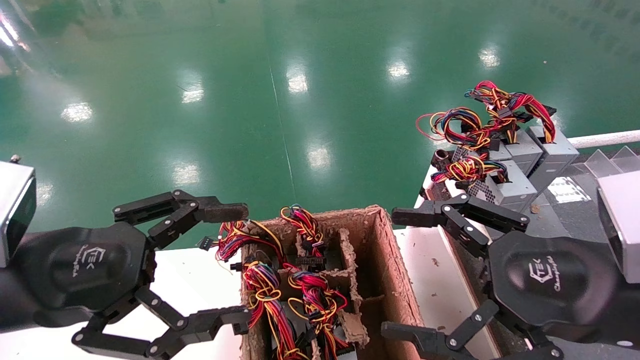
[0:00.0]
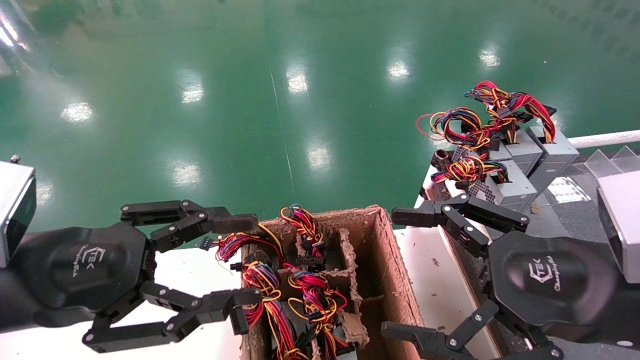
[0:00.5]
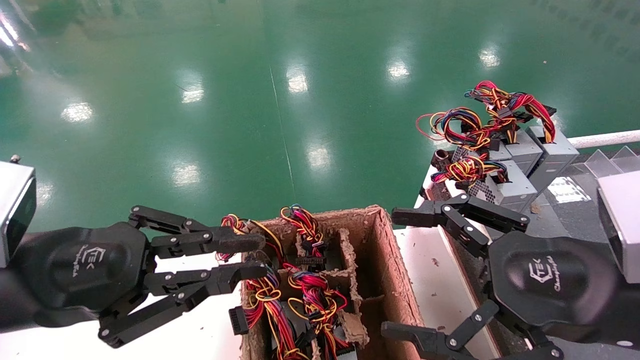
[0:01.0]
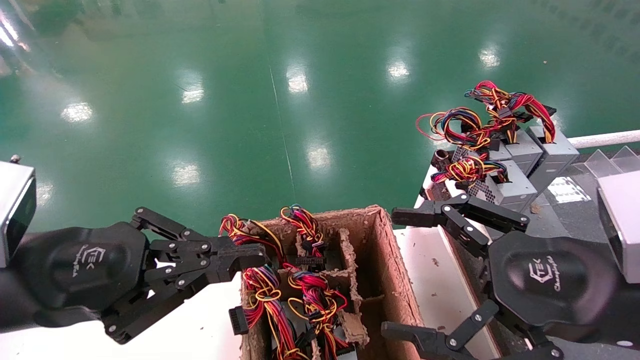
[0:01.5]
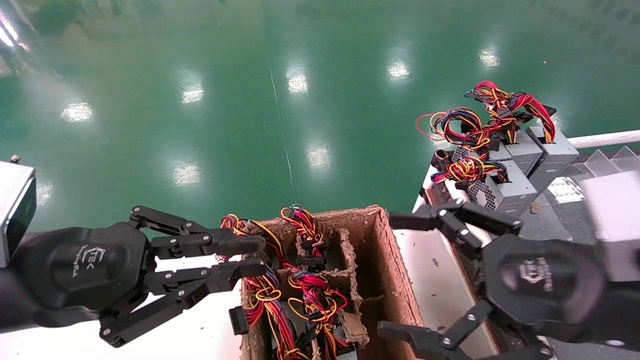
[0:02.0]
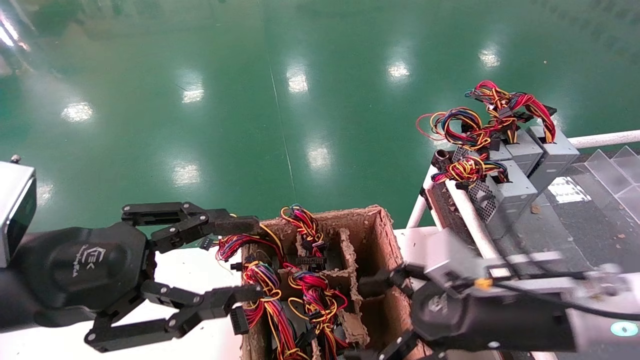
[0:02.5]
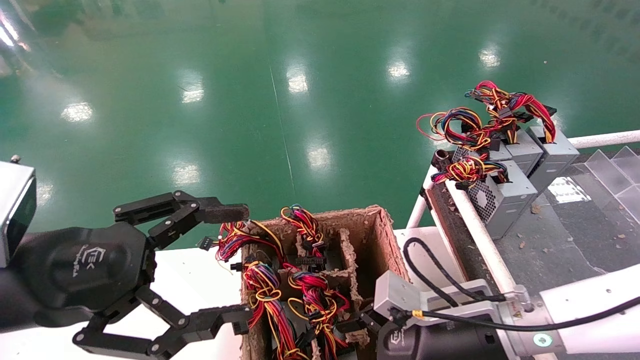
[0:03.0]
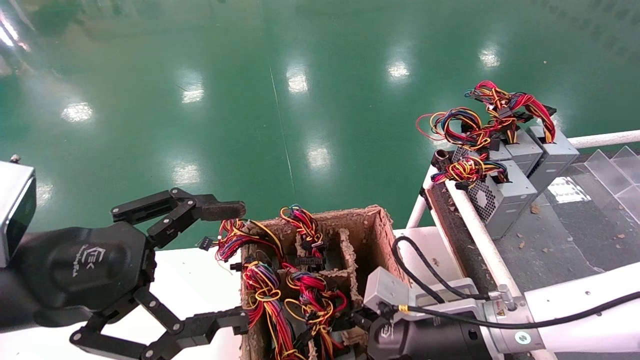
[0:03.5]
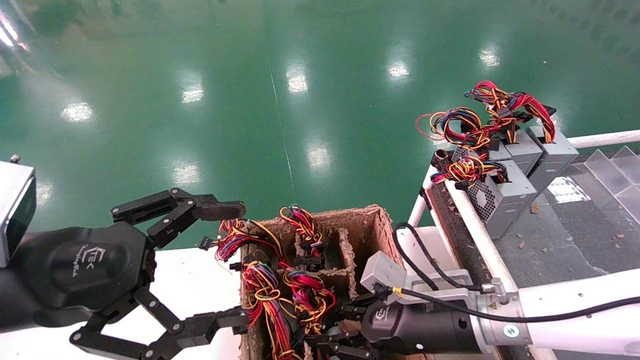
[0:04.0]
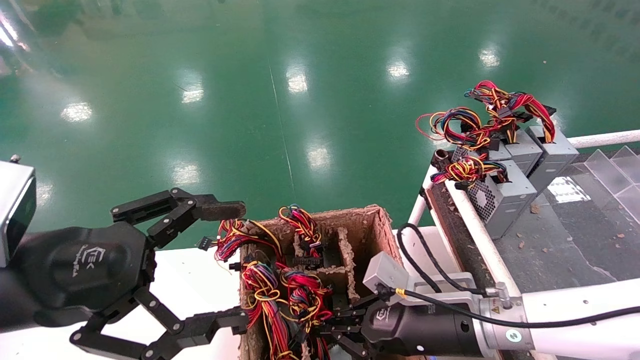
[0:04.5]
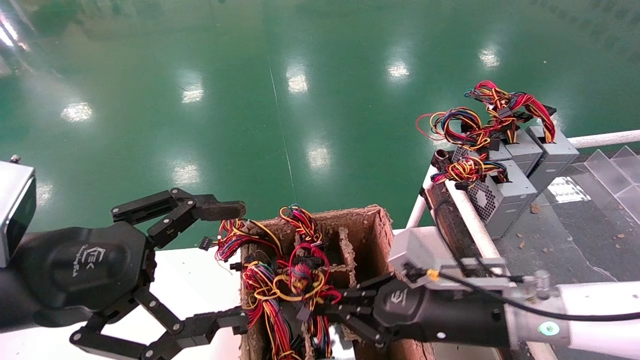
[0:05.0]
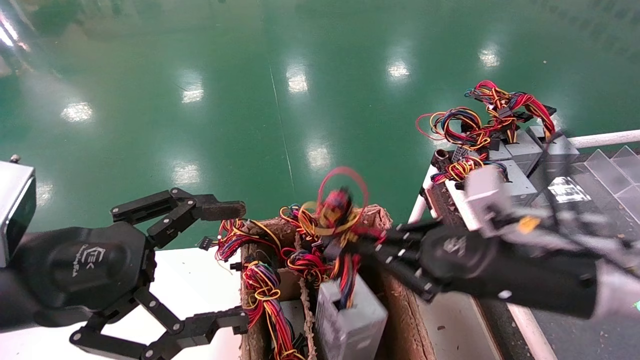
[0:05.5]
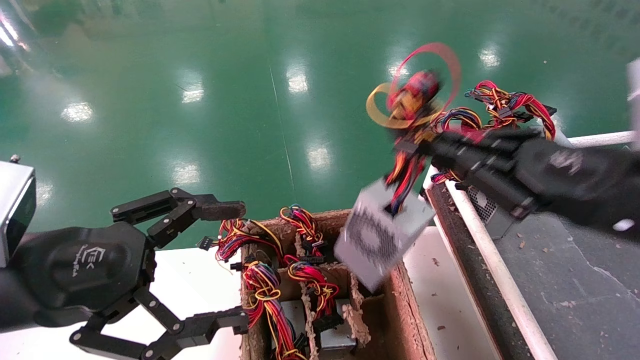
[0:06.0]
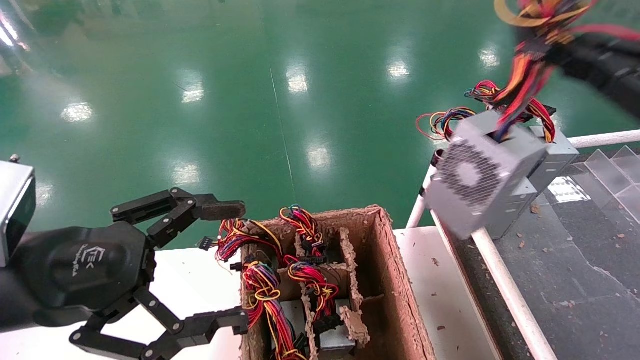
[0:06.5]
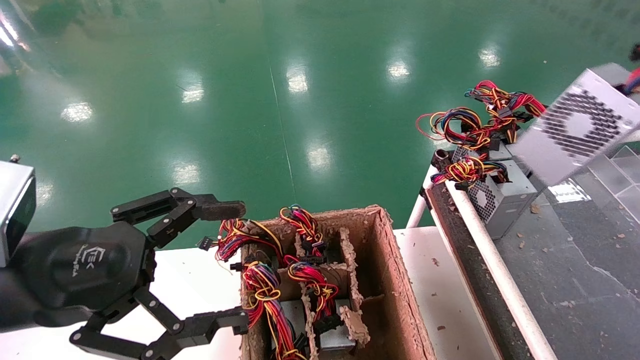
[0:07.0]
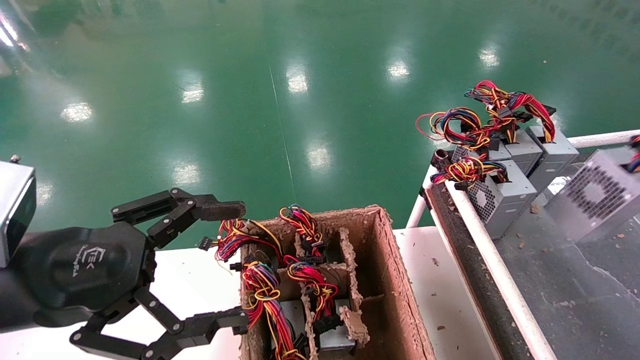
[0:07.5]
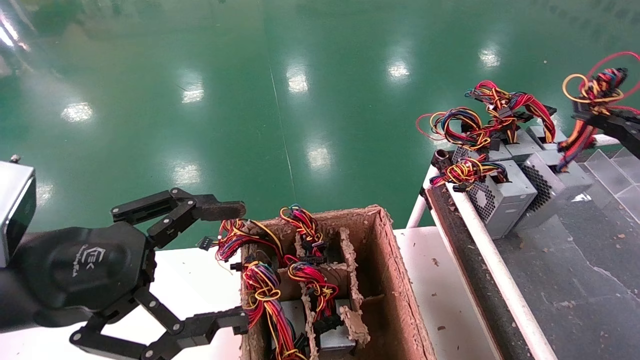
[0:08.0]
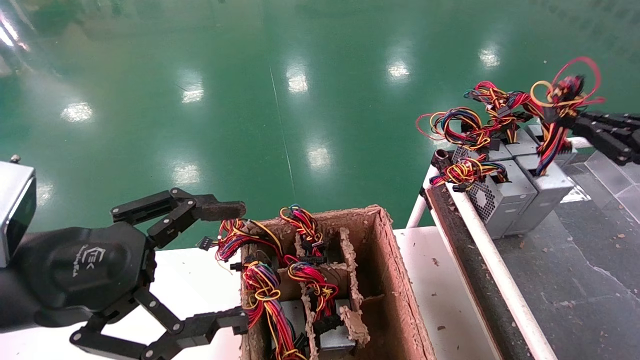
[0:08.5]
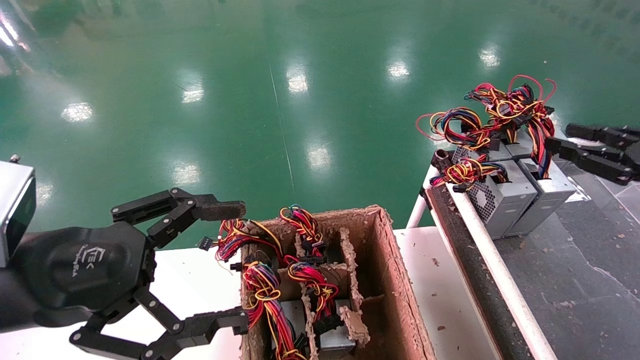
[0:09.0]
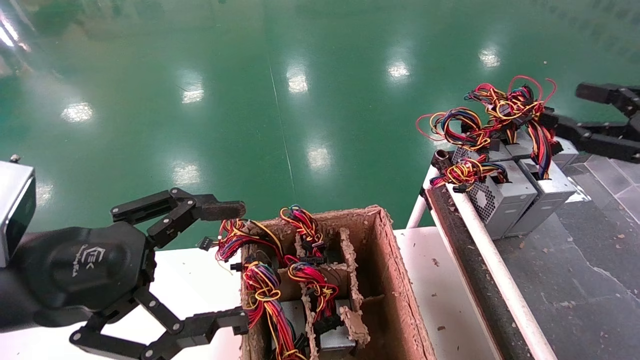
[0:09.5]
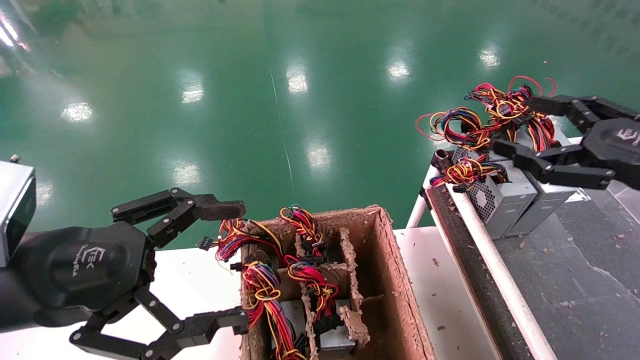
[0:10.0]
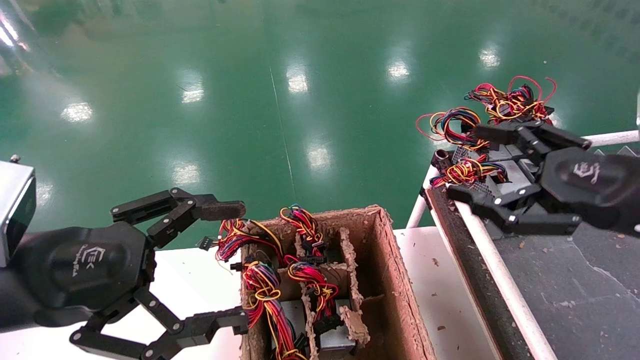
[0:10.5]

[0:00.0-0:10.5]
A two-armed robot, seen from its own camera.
Step, 0:02.5 to 0:04.5: Grab and lift the power supply from the large box.
Step, 0:05.0 to 0:09.0: Place the power supply on the operating table.
0:00.0 to 0:02.0: The left gripper closes its fingers.
0:02.0 to 0:04.0: The right gripper travels downward, forward and to the left by approximately 20 cm, and closes. Meanwhile the left gripper opens up.
0:04.0 to 0:06.5: The right gripper moves upward, to the right and backward, approximately 35 cm, and closes its fingers.
0:06.5 to 0:08.5: The right gripper moves forward, to the right and downward, about 15 cm.
0:08.5 to 0:10.5: The right gripper is displaced to the left and backward by roughly 15 cm, and opens.

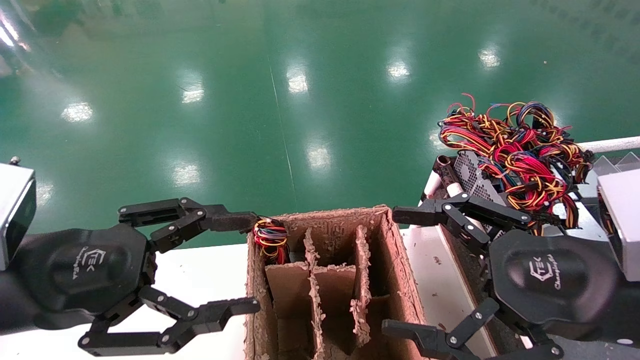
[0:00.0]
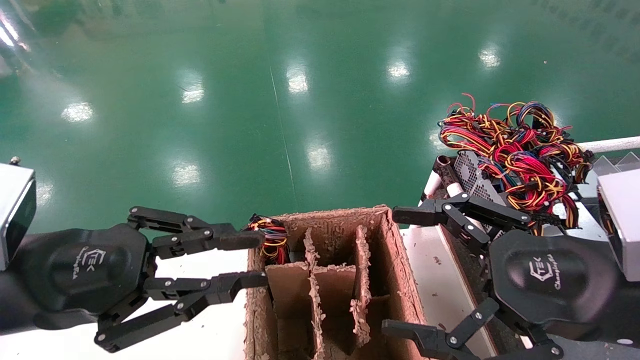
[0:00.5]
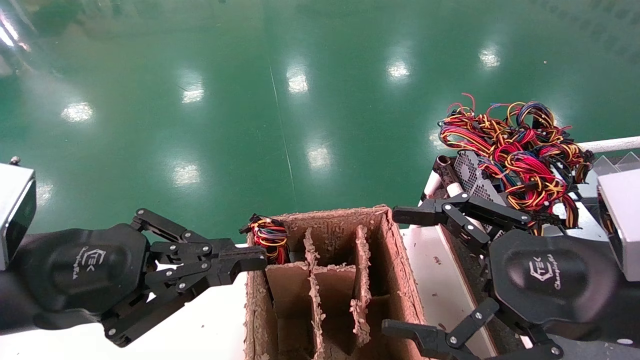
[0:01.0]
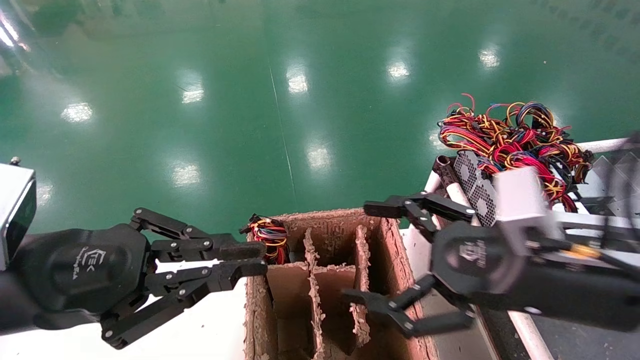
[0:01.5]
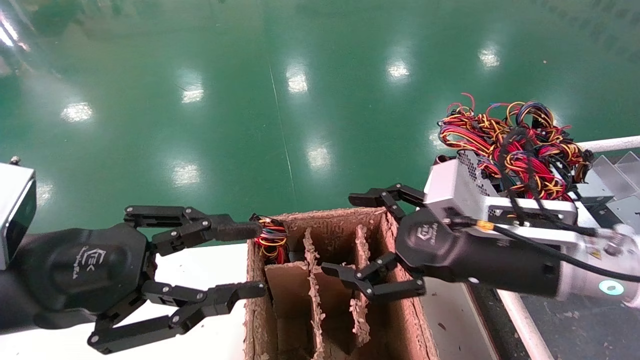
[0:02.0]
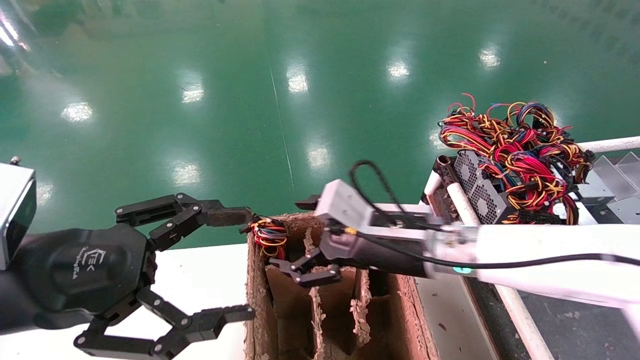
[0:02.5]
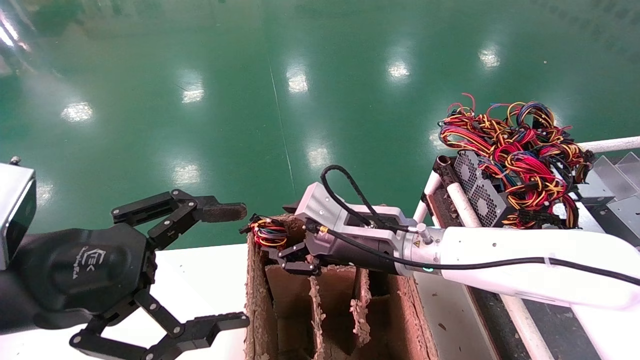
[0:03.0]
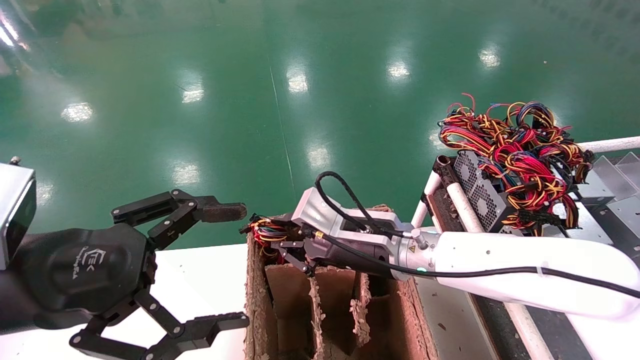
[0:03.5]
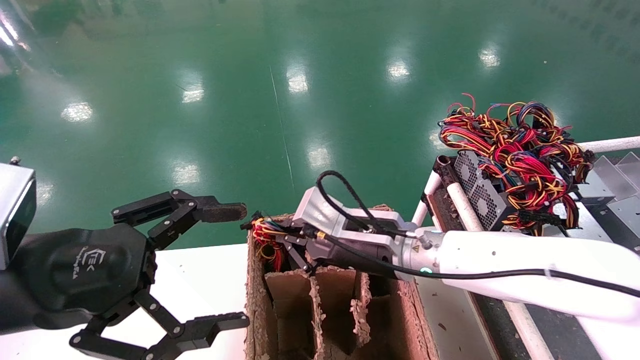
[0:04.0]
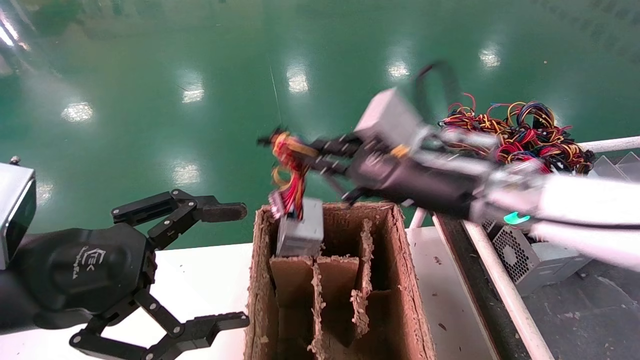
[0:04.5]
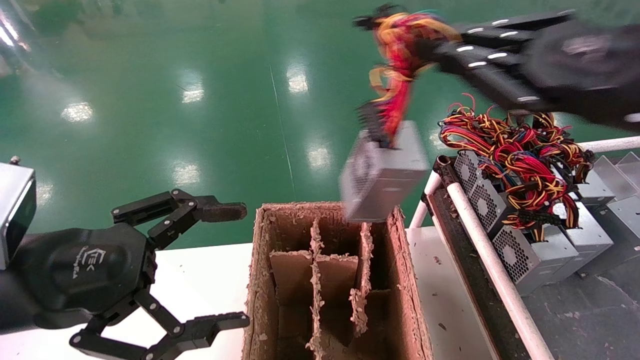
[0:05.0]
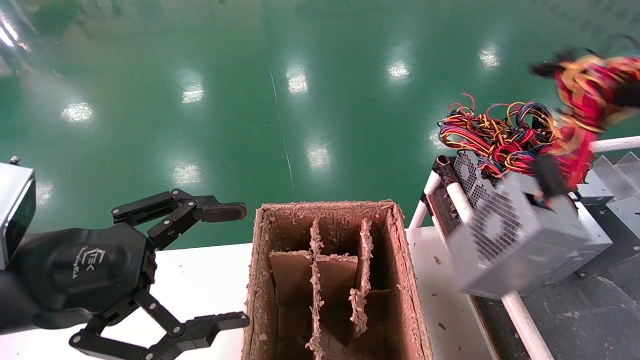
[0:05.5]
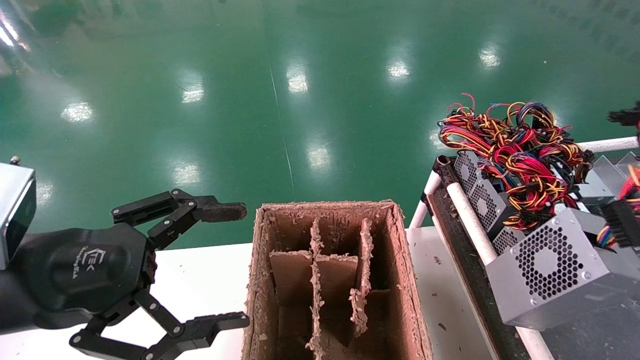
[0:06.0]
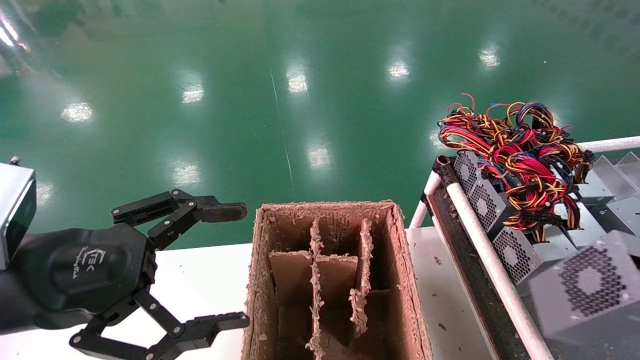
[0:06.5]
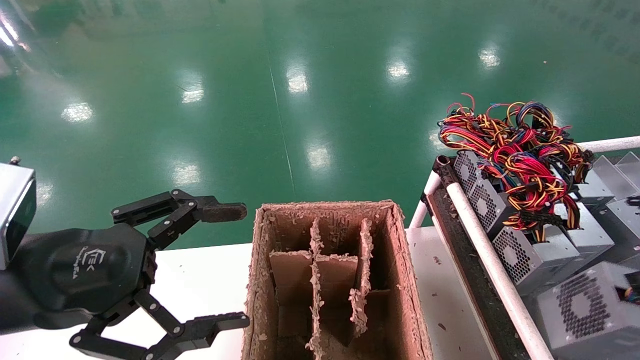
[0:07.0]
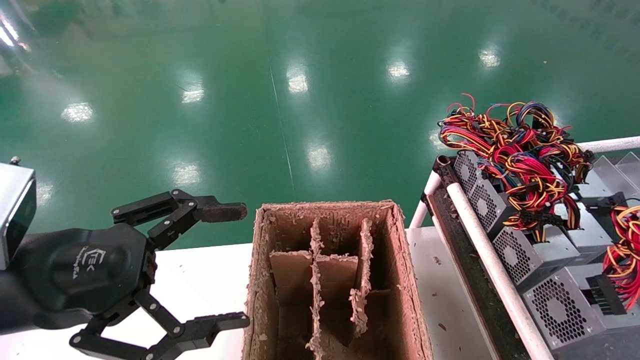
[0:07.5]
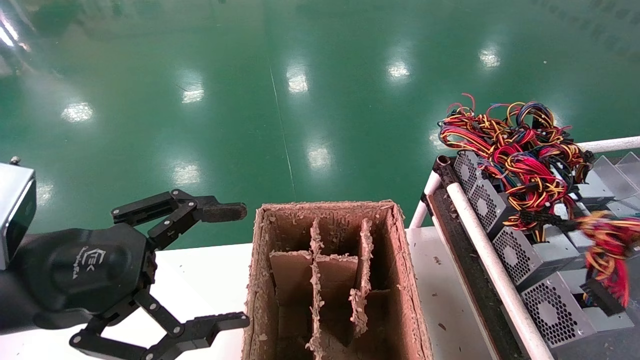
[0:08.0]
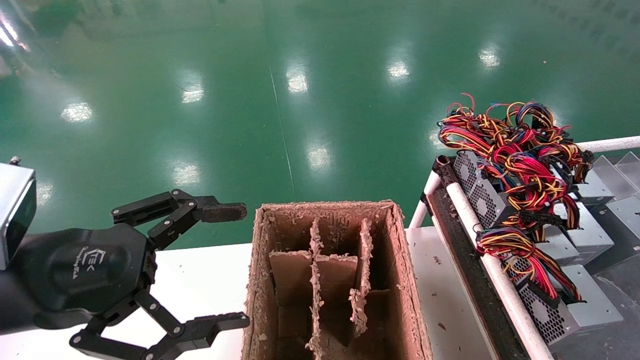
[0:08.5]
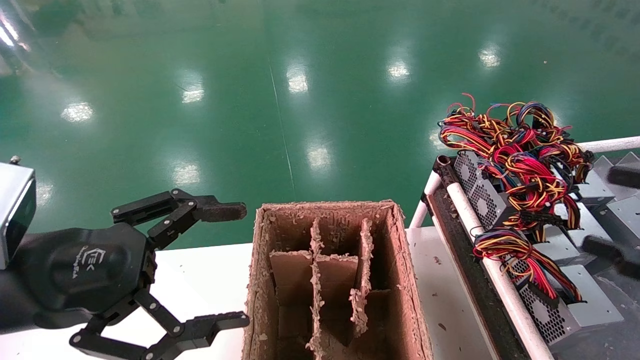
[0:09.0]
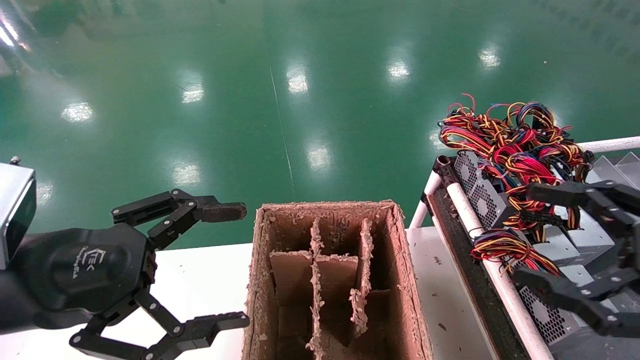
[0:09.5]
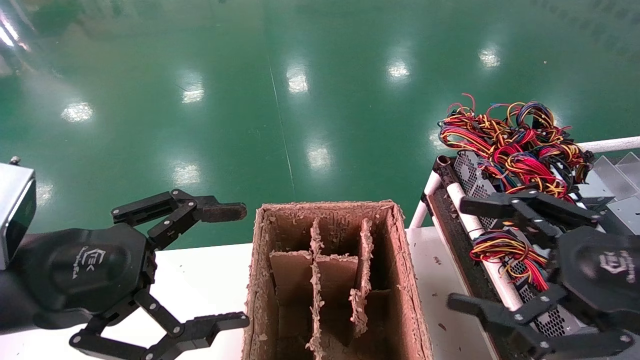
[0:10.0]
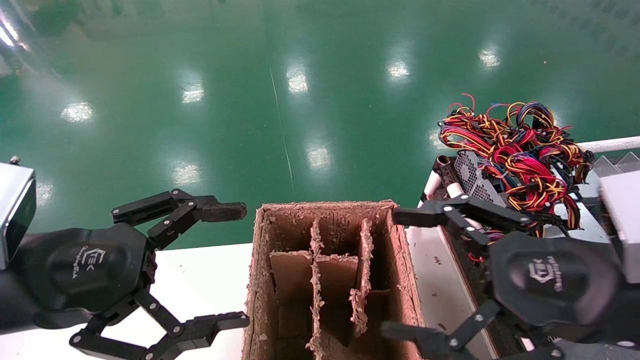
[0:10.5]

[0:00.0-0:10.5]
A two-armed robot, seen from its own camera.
Step, 0:01.5 to 0:03.5: Grab and lift the power supply from the large box.
Step, 0:04.0 to 0:08.0: Place the power supply on the operating table.
0:00.0 to 0:02.0: The right gripper heads forward and to the left, covering some 10 cm; the left gripper closes its fingers.
0:02.0 to 0:04.0: The right gripper moves to the left and forward, roughly 10 cm, and closes up. Meanwhile the left gripper opens up.
0:04.0 to 0:06.5: The right gripper travels to the right and backward by some 50 cm.
0:06.5 to 0:08.5: The right gripper ends up roughly 5 cm from where it was, and opens up.
0:08.5 to 0:10.5: The right gripper travels to the left by about 20 cm, and opens.
